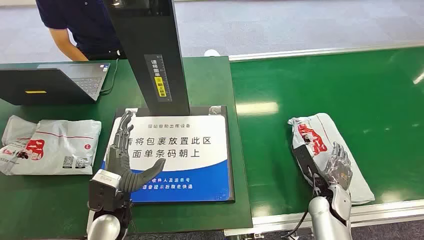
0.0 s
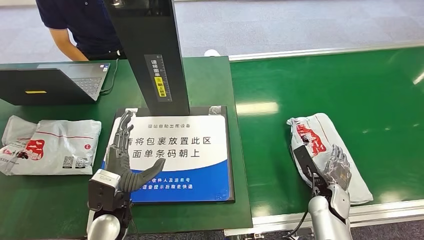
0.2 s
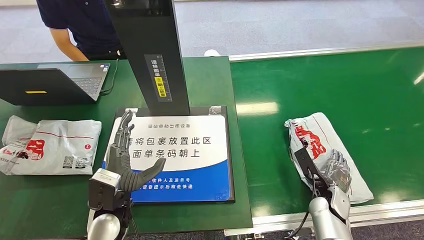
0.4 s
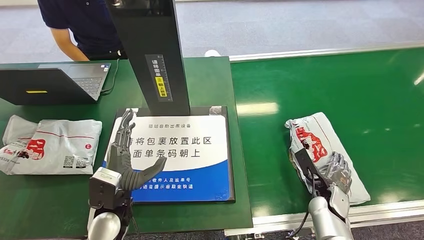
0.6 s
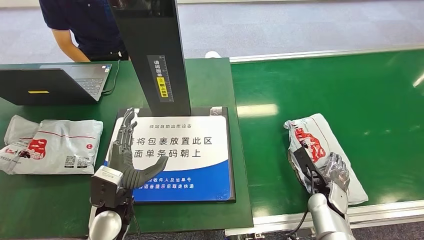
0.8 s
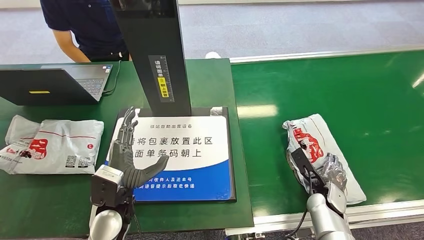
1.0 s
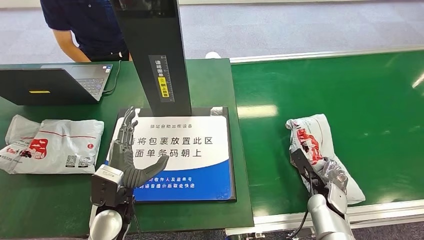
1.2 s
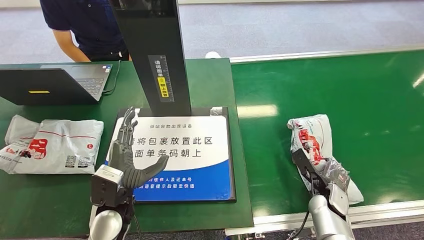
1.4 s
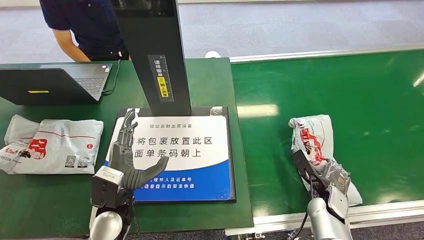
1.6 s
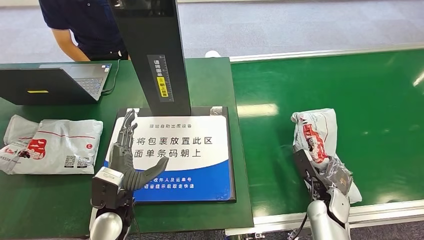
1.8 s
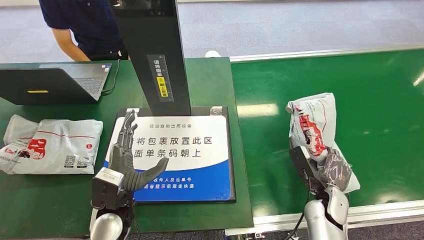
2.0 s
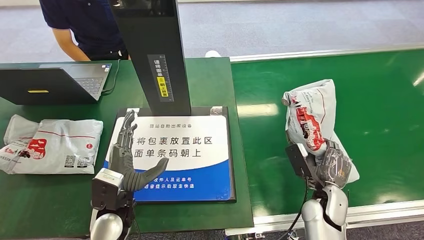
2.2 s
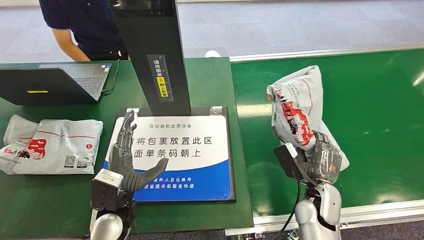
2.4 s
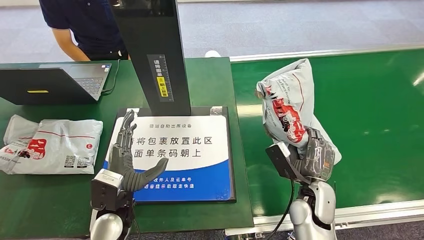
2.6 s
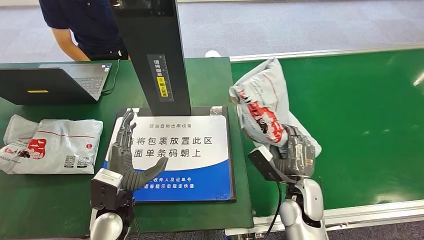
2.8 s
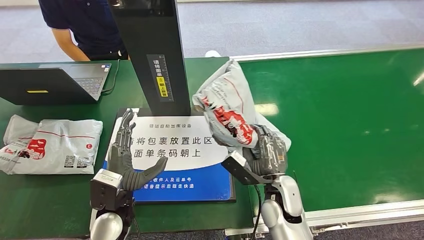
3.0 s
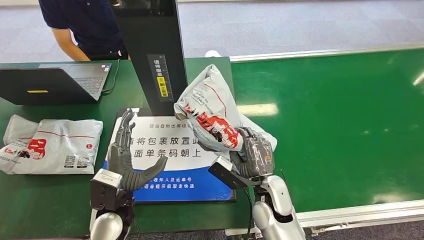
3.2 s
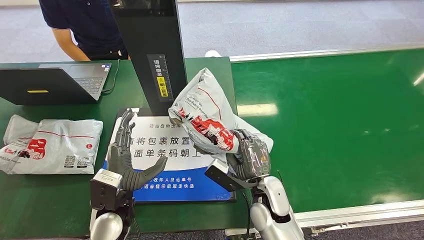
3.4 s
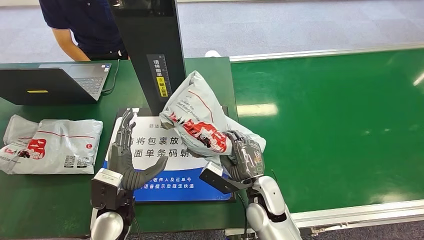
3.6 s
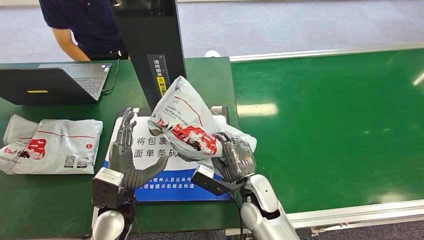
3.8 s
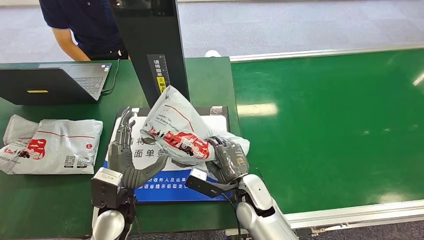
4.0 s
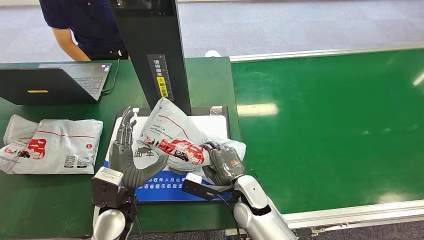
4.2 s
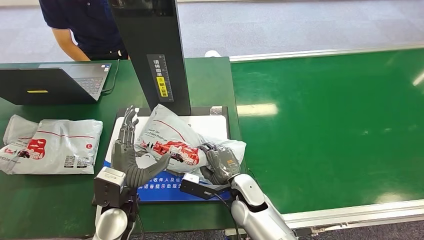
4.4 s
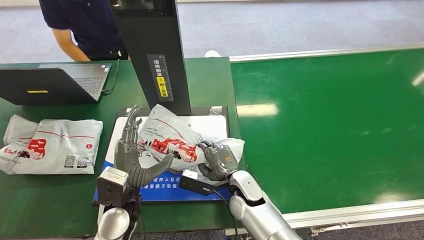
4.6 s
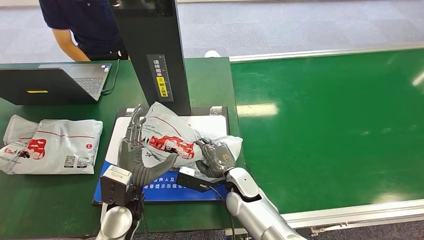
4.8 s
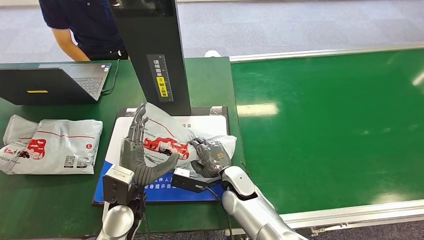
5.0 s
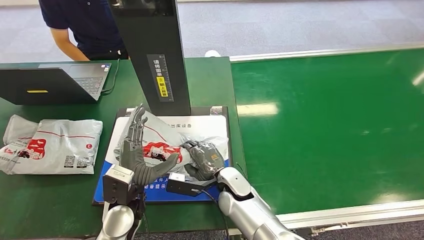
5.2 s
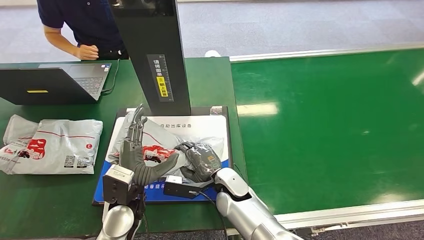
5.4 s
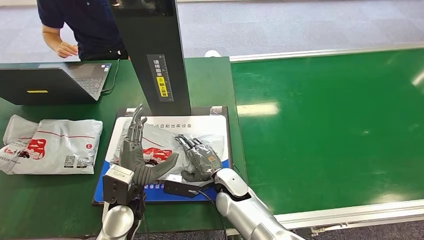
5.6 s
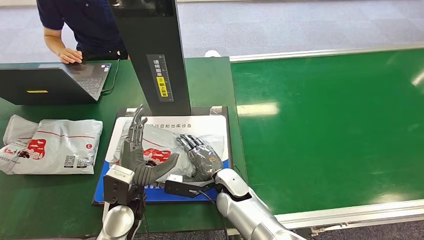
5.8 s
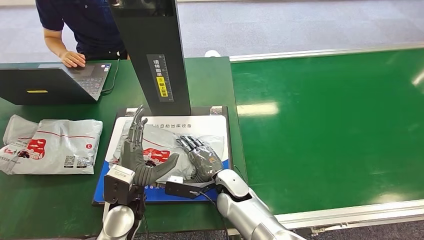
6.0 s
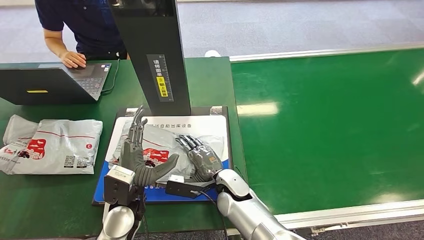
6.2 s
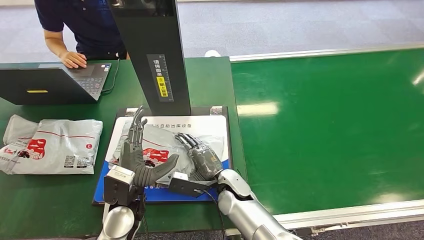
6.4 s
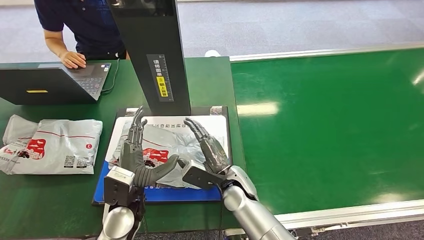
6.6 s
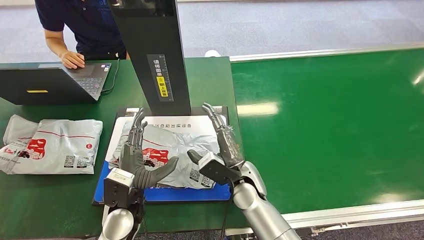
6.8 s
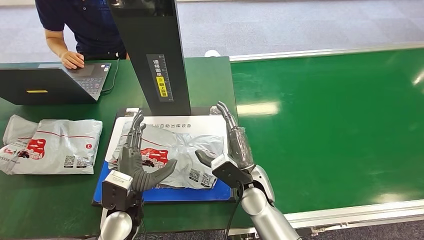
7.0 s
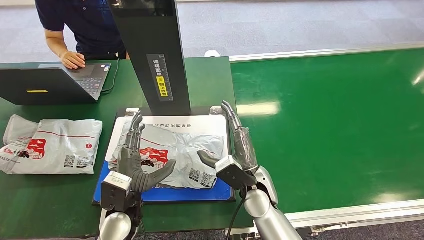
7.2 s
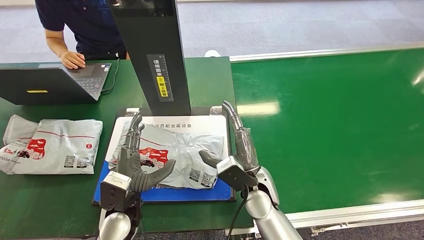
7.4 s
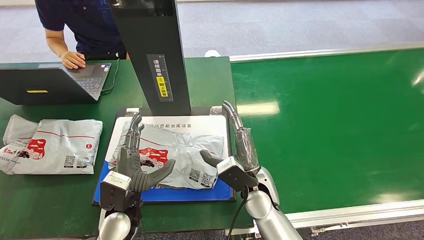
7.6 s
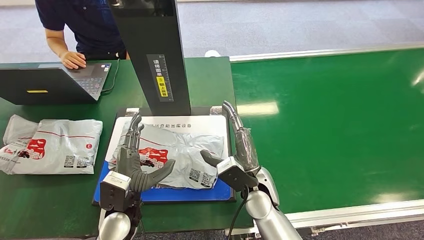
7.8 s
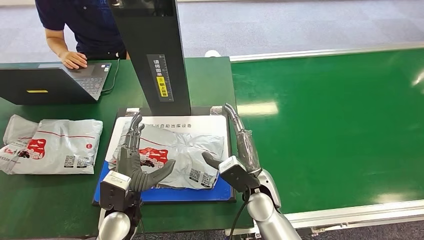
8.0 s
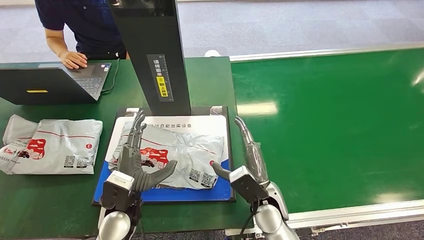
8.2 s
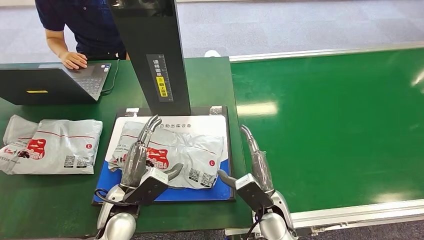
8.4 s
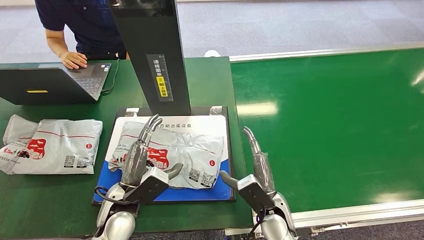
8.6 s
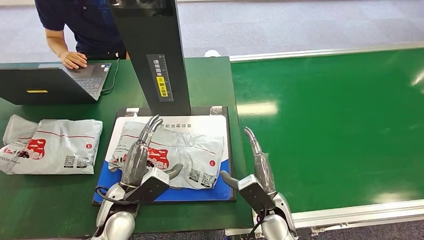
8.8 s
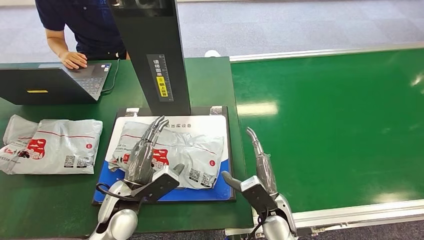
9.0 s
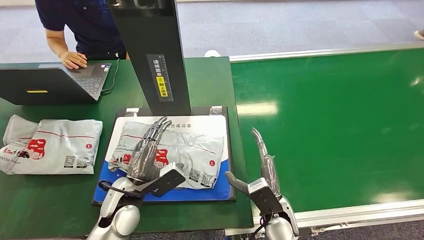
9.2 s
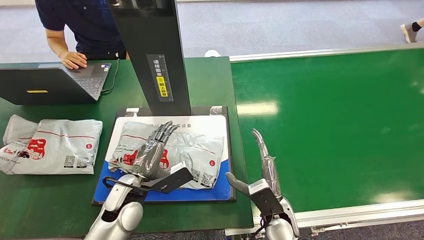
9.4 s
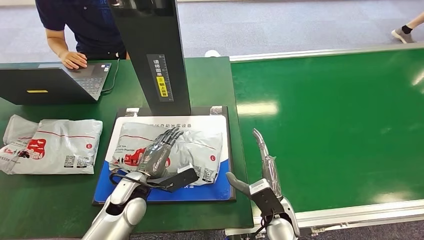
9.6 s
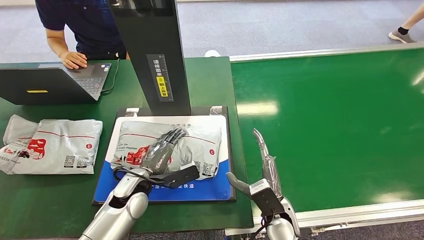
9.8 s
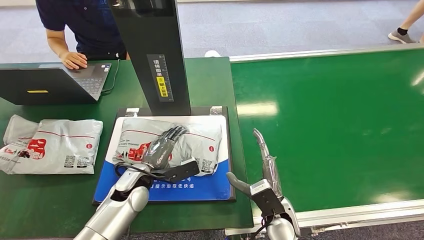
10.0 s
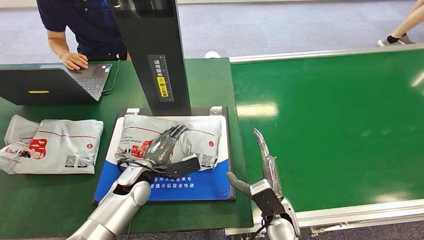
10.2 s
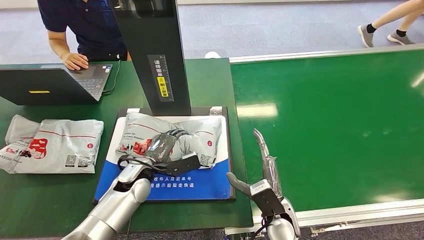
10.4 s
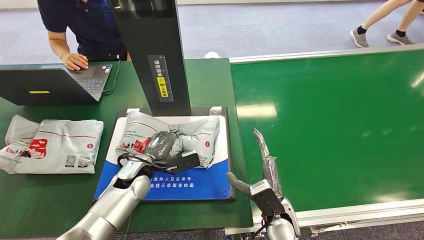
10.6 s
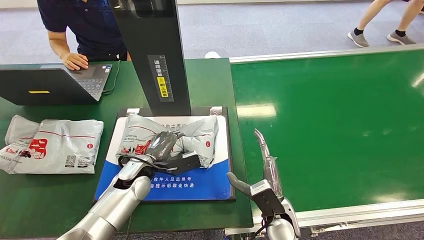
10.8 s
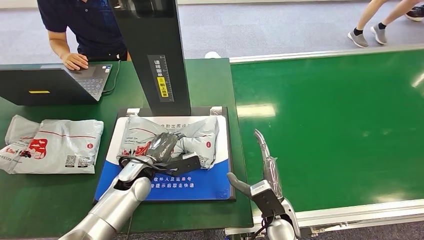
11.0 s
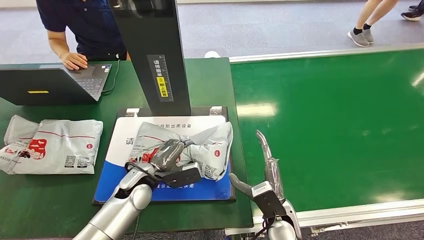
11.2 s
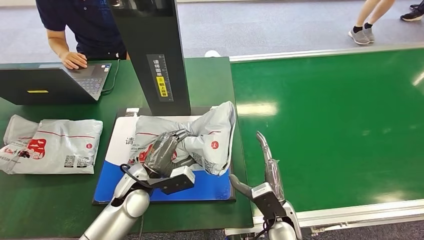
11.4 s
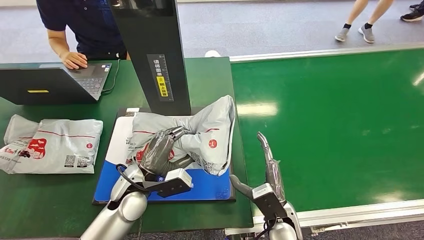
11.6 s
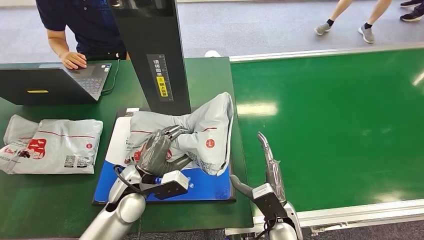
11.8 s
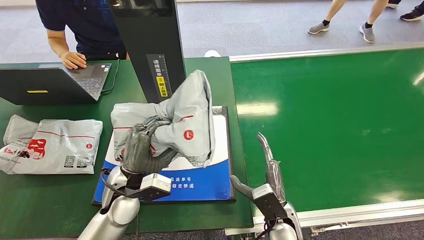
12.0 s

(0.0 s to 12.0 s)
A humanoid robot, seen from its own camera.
Step, 0.0 s - 2.4 s: Pick up the package from the conveyor belt.
Step, 2.6 s - 6.8 s: Place the package onto the inbound machine.
Step, 9.0 s - 11.8 s: Pick up the package from the inbound machine.
1.6 s - 3.0 s: The right hand goes approximately 20 cm to the left and upward.
3.0 s - 4.4 s: The right hand travels to the left by approximately 10 cm.
4.4 s - 6.0 s: The hands make only small movements.
6.0 s - 7.6 s: The right hand travels to the right and upward by approximately 10 cm.
7.6 s - 9.0 s: The right hand is displaced downward by approximately 5 cm.
9.0 s - 10.4 s: The left hand travels forward by roughly 10 cm.
10.4 s - 12.0 s: The left hand heads upward, covering roughly 5 cm.

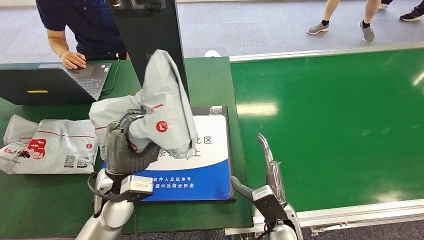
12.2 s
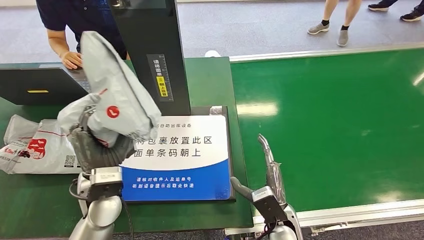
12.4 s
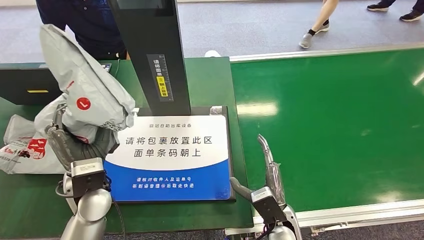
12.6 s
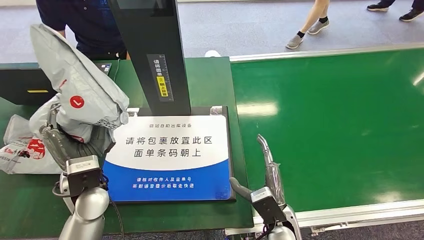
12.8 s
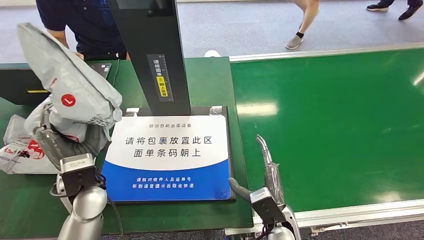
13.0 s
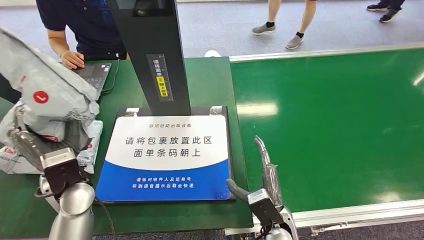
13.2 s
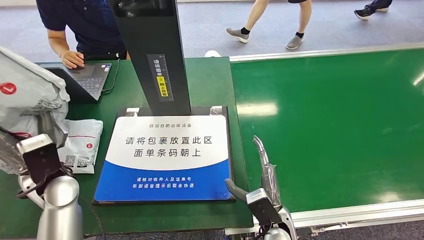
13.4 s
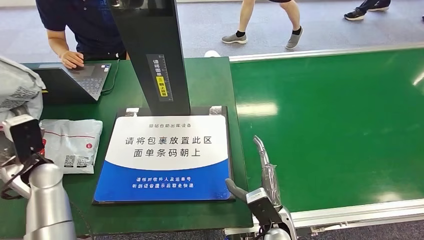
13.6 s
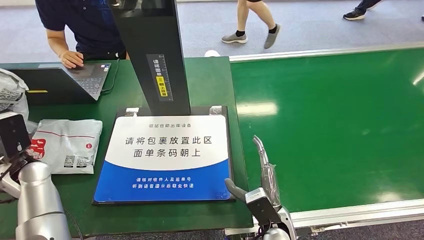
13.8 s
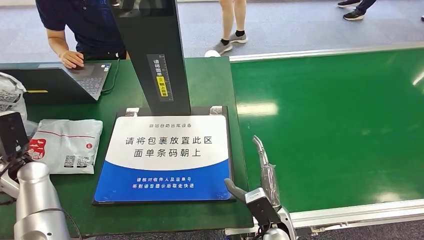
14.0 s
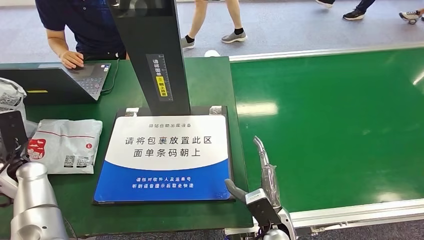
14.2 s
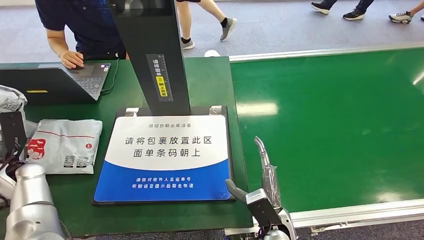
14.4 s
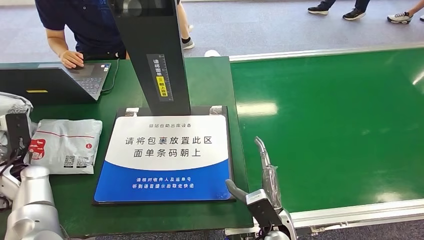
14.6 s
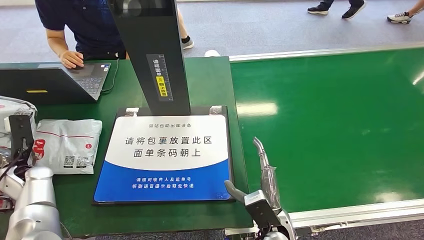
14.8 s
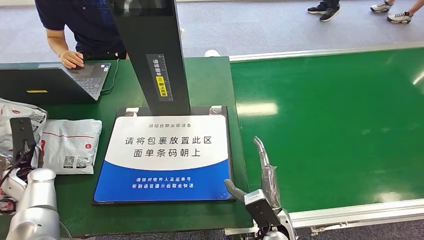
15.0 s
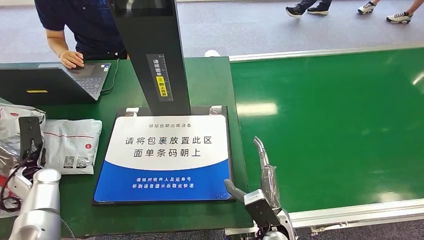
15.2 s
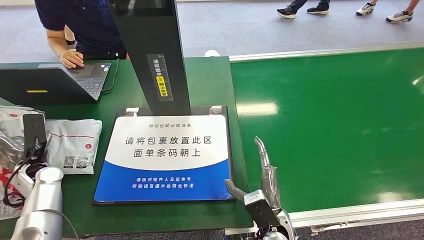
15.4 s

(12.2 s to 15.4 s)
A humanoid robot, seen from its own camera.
Step, 12.2 s - 15.4 s: Place the package into the parcel locker.
13.8 s - 15.4 s: The left hand goes roughly 5 cm downward.
